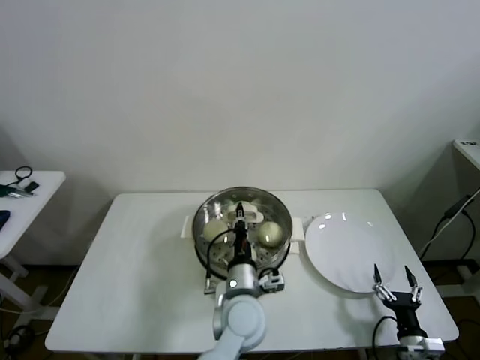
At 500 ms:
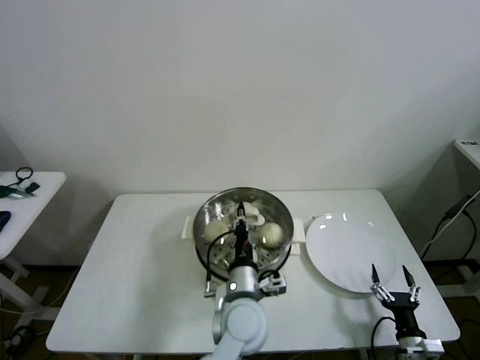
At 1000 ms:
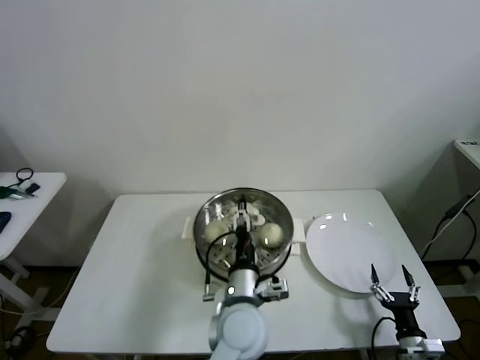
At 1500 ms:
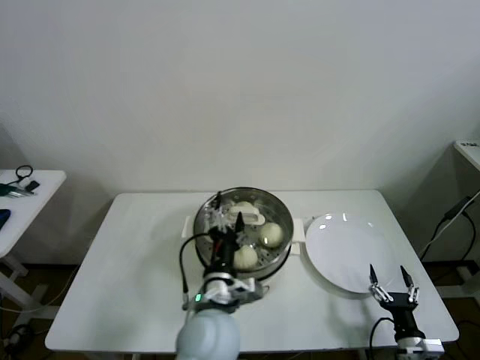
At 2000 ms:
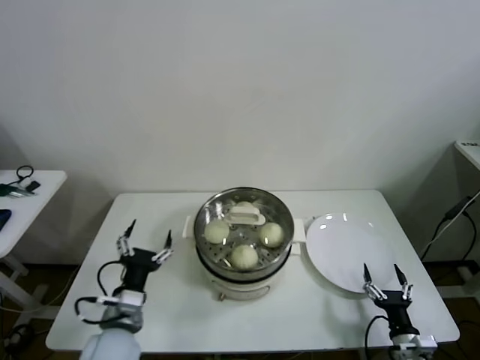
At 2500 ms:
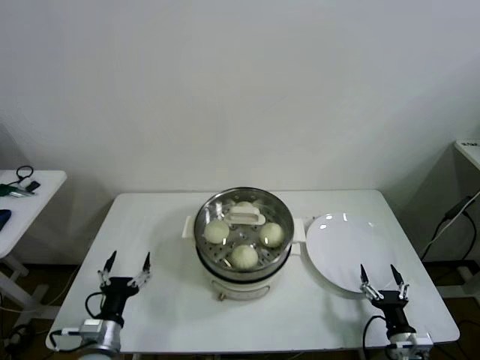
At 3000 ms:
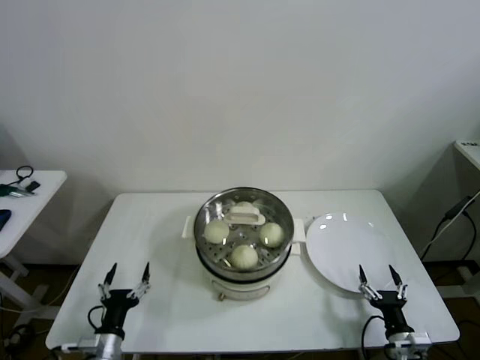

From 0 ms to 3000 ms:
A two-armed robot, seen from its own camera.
Task of the whole recording: take steamed baozi put them in steamer then cover it.
From 0 ms to 1500 ms: The left gripper travels upward by about 5 cm, and opens up.
From 1500 ms to 3000 ms: The left gripper goes about 30 cm to the left and downward.
